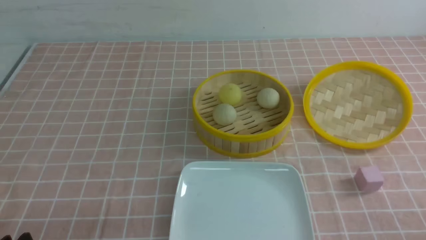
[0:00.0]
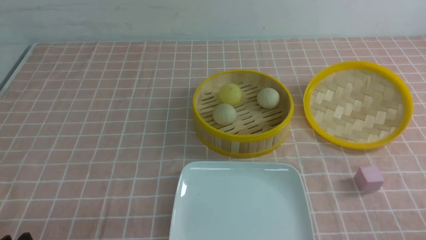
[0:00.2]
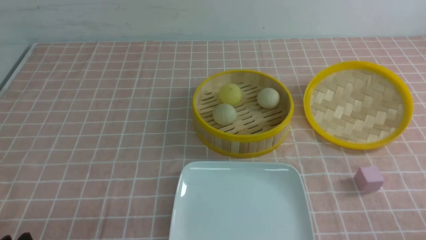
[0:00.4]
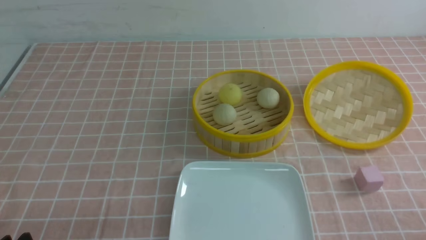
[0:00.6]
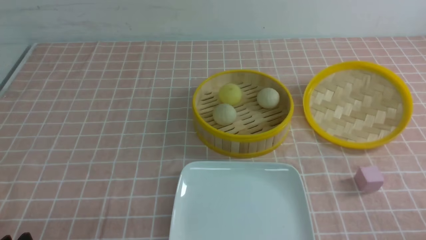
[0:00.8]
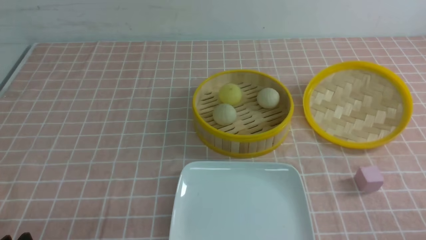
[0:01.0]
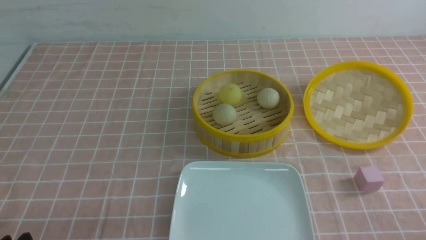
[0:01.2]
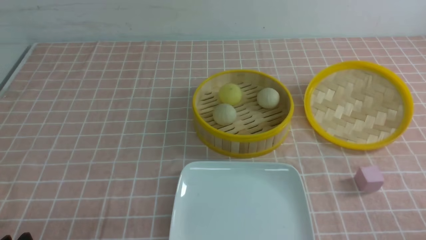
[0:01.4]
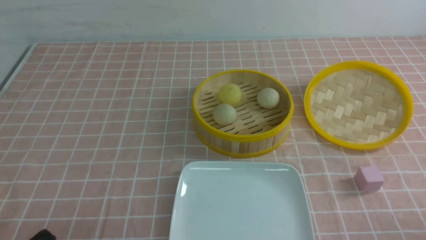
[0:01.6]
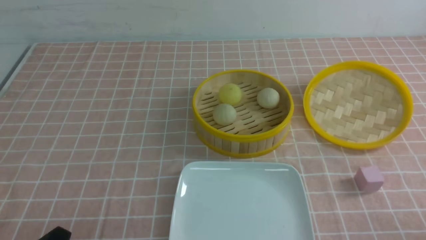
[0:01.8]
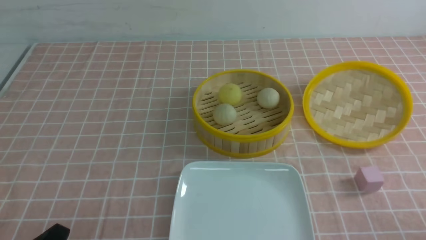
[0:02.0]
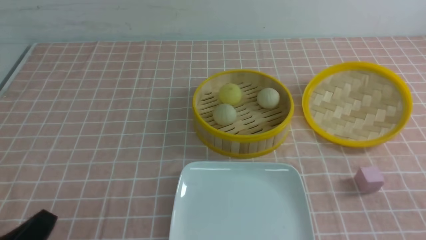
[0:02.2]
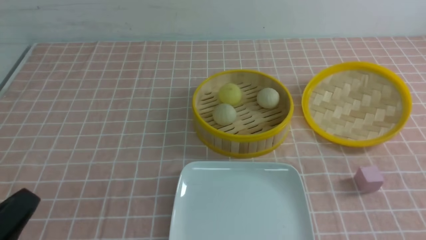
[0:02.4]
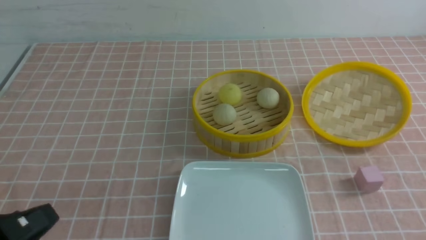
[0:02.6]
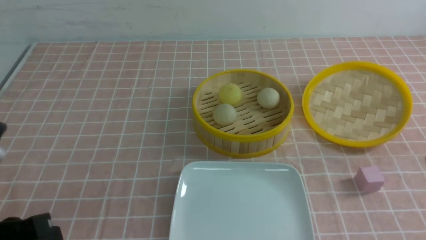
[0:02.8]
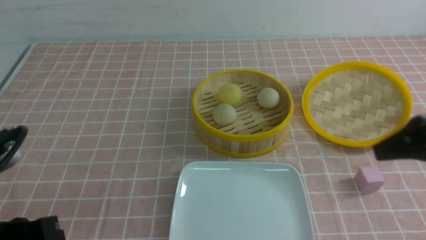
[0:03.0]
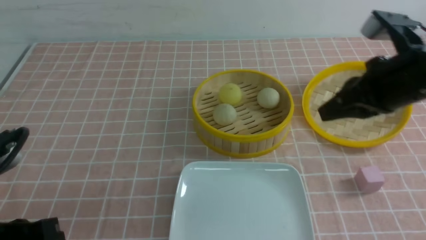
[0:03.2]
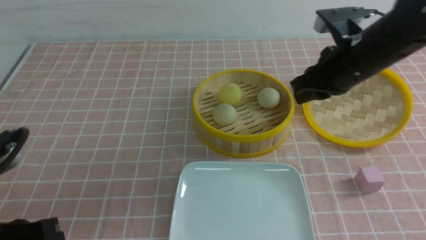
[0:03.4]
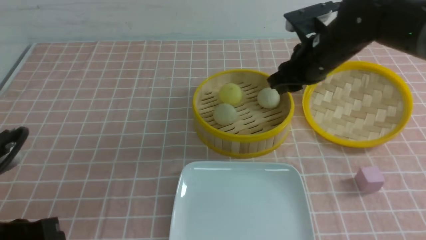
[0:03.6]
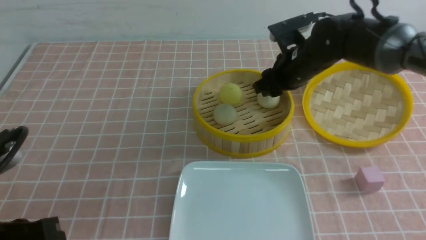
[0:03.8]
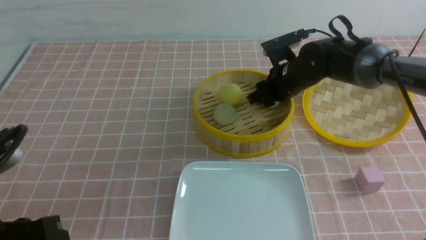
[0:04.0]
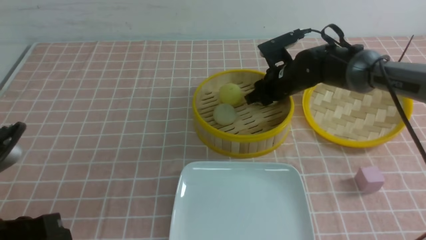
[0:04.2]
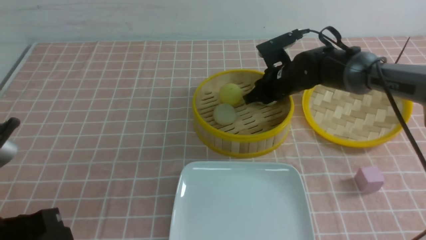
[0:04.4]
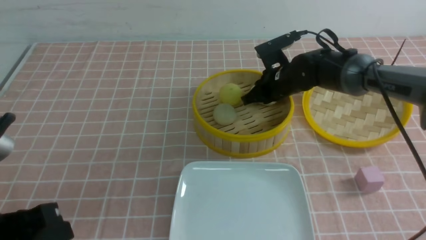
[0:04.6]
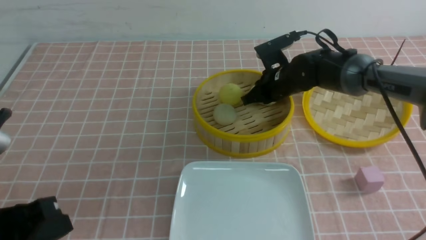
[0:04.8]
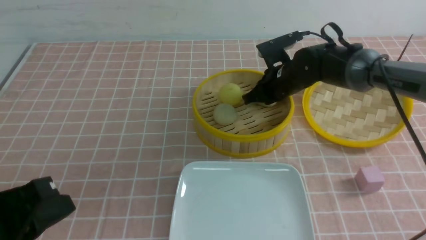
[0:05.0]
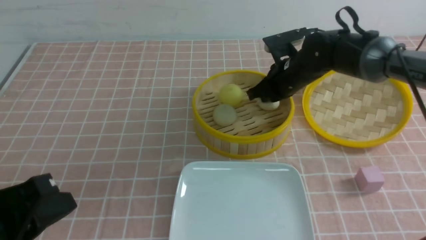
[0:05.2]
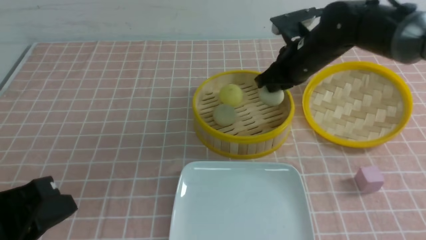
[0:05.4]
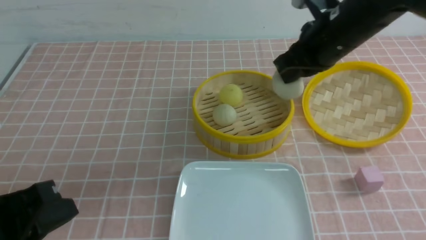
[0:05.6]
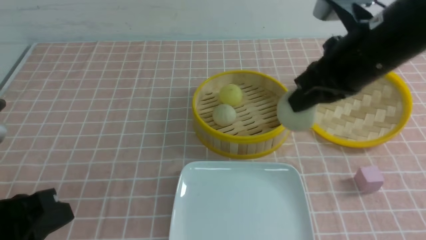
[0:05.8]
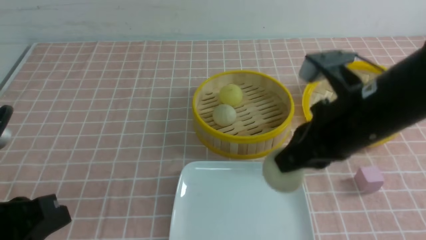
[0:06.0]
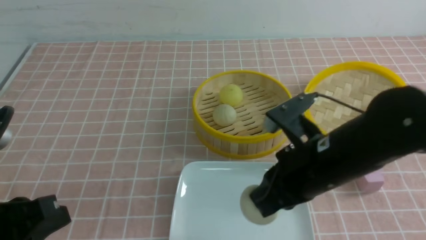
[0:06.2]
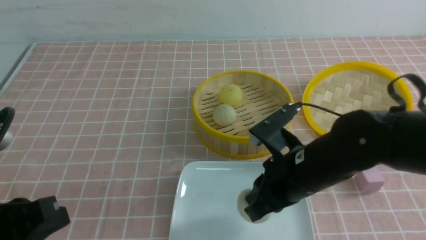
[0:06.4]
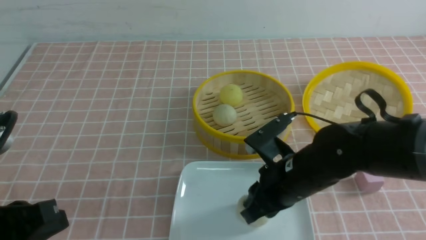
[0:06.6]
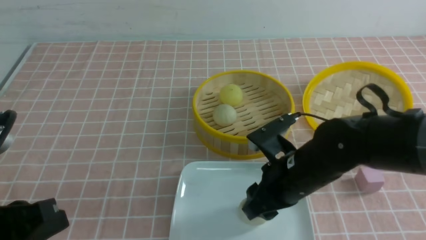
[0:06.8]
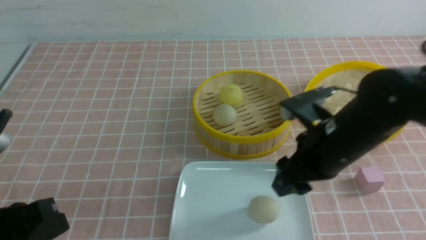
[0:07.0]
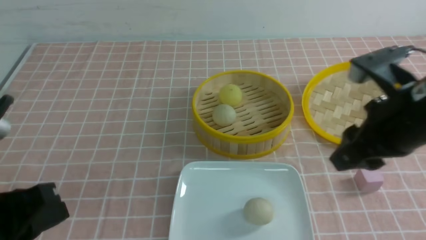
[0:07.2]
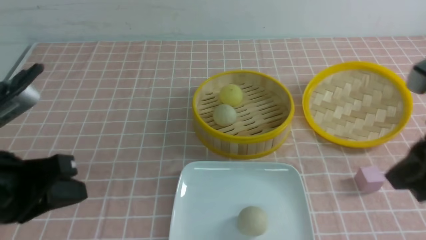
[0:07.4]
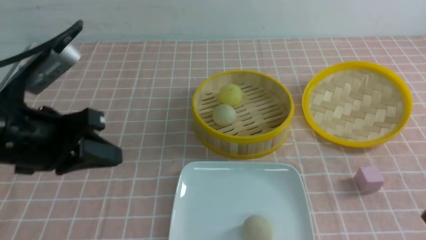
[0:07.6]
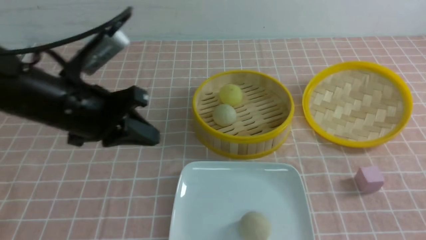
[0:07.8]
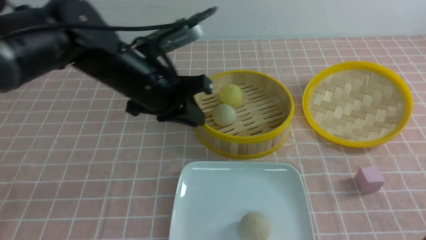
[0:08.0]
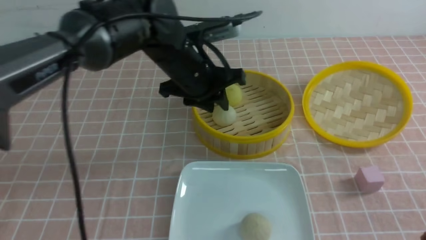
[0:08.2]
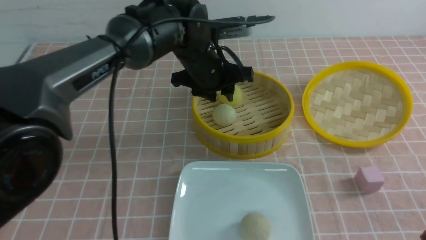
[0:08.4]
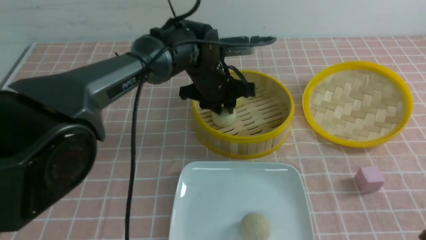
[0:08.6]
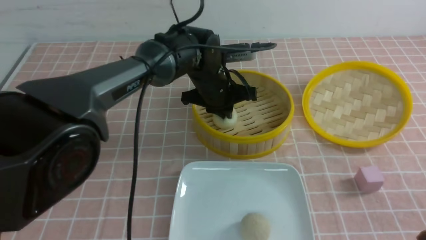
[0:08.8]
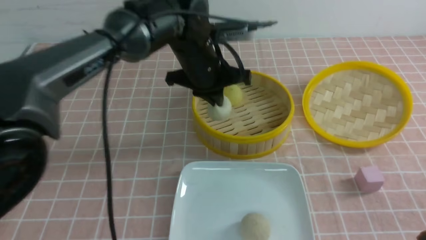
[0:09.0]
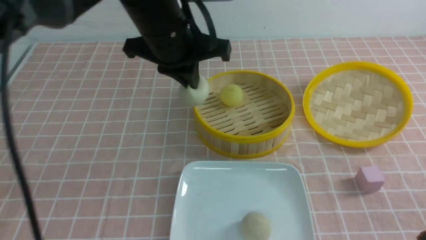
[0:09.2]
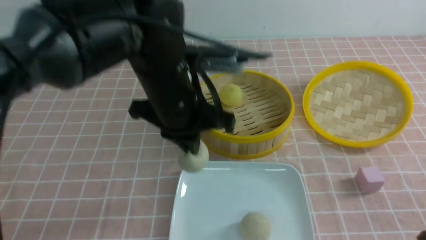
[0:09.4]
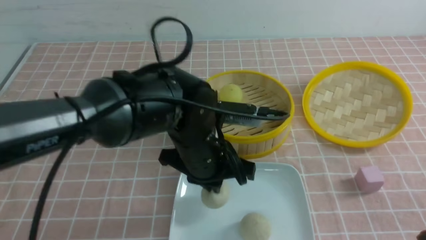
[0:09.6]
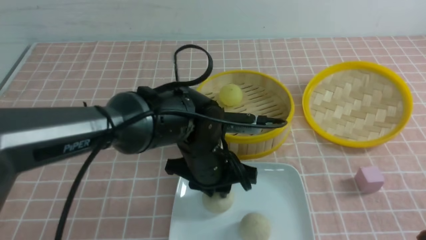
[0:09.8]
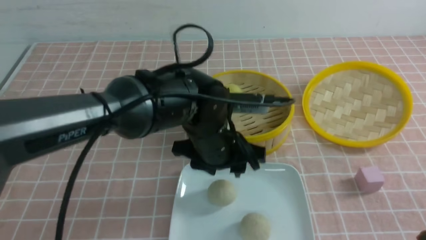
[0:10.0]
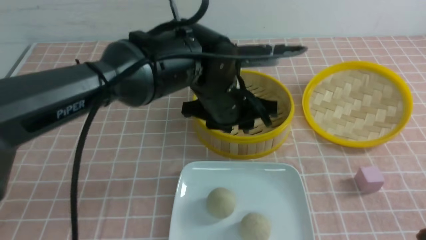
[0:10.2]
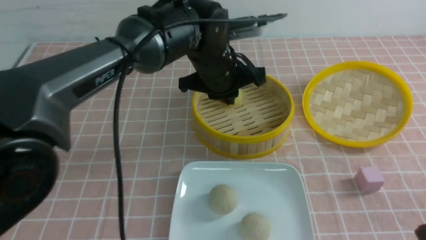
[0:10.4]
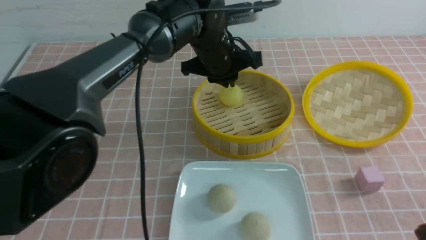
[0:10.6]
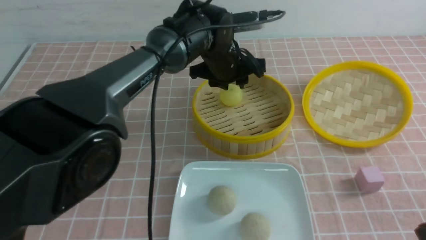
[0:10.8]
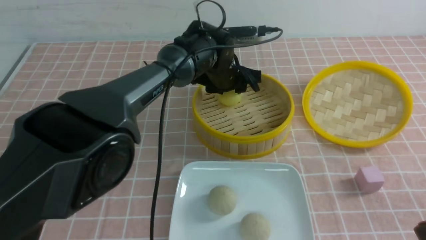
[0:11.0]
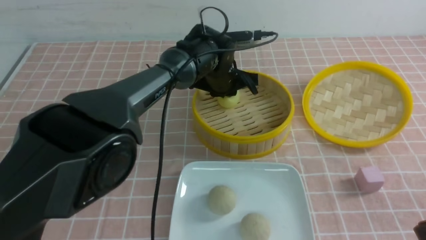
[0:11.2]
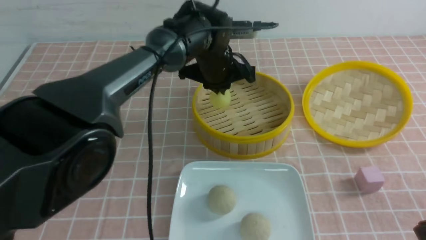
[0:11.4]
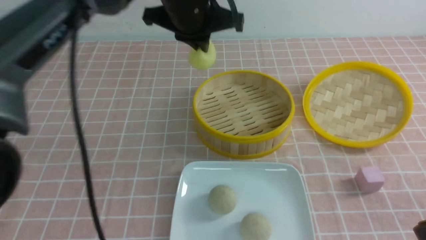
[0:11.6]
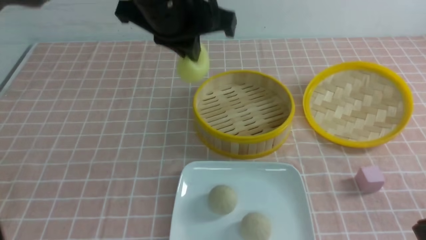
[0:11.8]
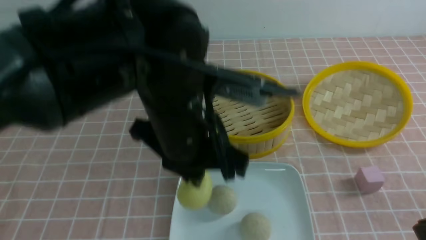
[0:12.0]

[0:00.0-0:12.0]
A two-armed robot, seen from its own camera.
Step, 0:00.0 to 0:04.0: use the right arm to grab the steamed stuffed bun that is closest to it.
Step, 0:04.4 to 0:06.8: use the right arm to put the steamed stuffed bun into the plate.
Step, 0:07.0 to 0:08.8: use the left arm to grab the steamed stuffed bun that is closest to it.
Step, 0:09.0 to 0:10.0: use the left arm to put the steamed stuffed bun into the plate.
Step, 0:10.2 to 0:11.0: use the left arm to grab the steamed stuffed bun that is closest to it.
0:01.6 to 0:03.0: The right gripper moves forward and upward, some 25 cm. Meanwhile the left gripper moves upward, roughly 10 cm, and closes its fingers.
0:03.0 to 0:04.4: The right gripper goes approximately 30 cm forward, downward and to the left, and opens up.
0:04.4 to 0:06.0: The right gripper shifts some 25 cm backward and upward, and closes.
0:06.0 to 0:07.6: The left gripper heads forward, covering some 10 cm; the right gripper heads backward and to the right, covering about 15 cm, and opens and closes again.
0:07.6 to 0:09.0: The left gripper is displaced to the right and forward by roughly 25 cm, and opens, then closes again.
0:09.0 to 0:10.4: The left gripper reaches about 10 cm downward, then returns, and opens, then closes again.
0:10.4 to 0:12.0: The left gripper goes some 15 cm backward, and opens, then closes again.

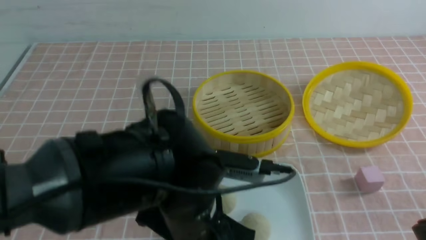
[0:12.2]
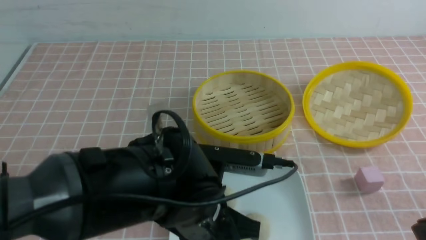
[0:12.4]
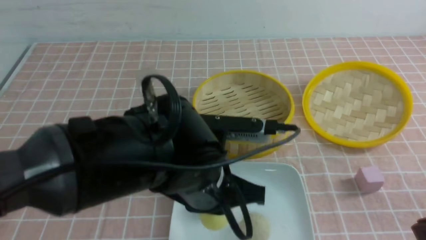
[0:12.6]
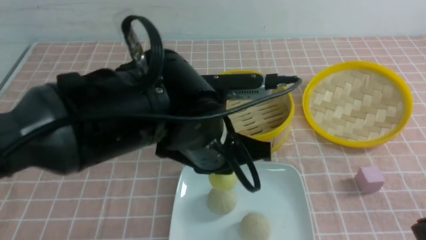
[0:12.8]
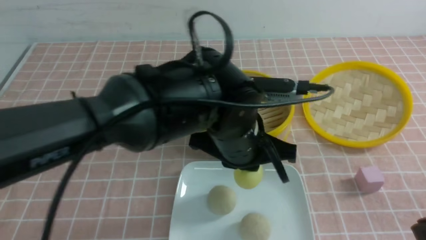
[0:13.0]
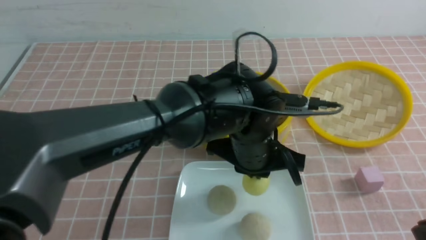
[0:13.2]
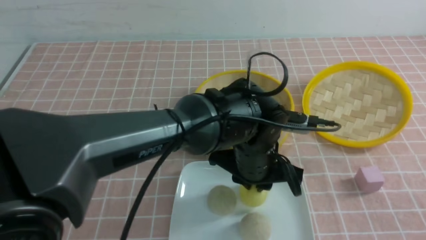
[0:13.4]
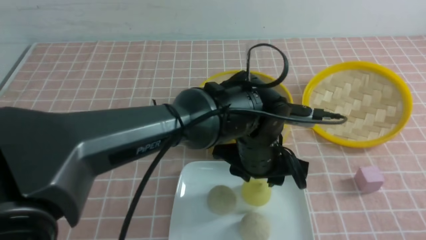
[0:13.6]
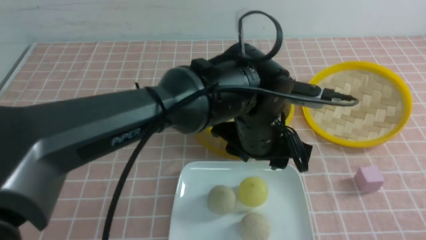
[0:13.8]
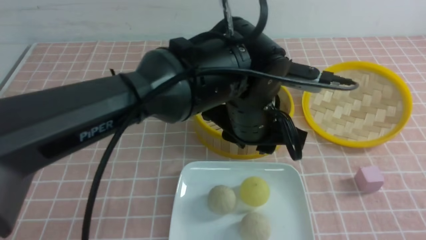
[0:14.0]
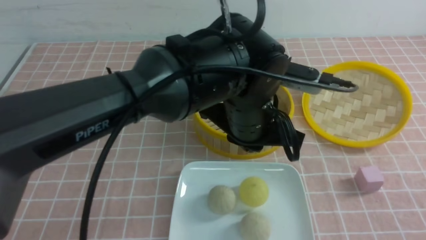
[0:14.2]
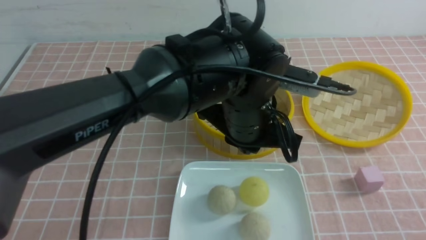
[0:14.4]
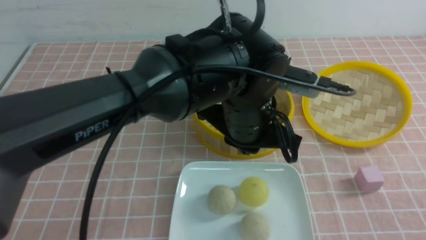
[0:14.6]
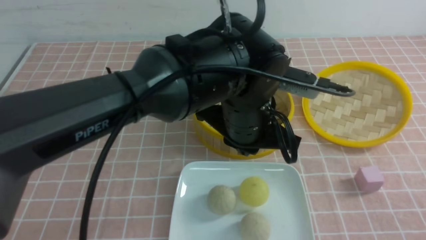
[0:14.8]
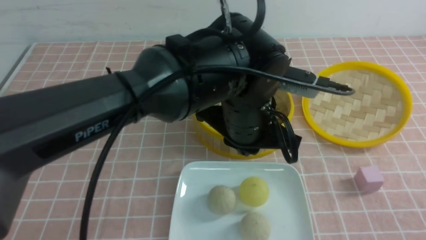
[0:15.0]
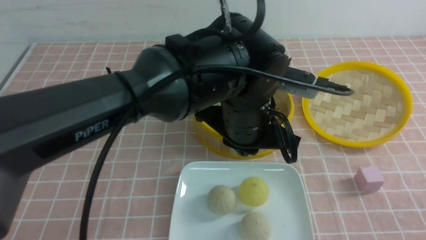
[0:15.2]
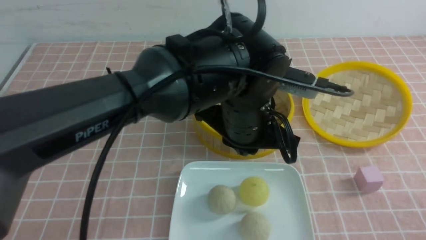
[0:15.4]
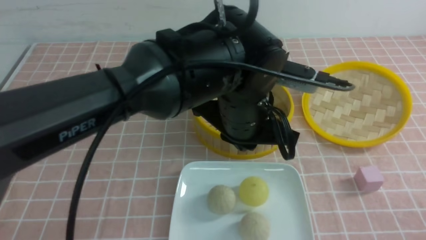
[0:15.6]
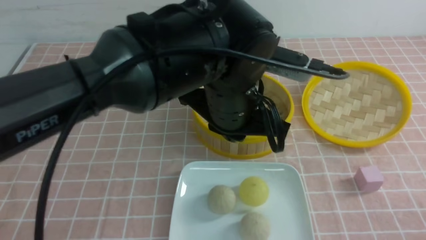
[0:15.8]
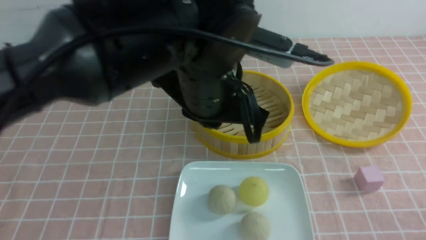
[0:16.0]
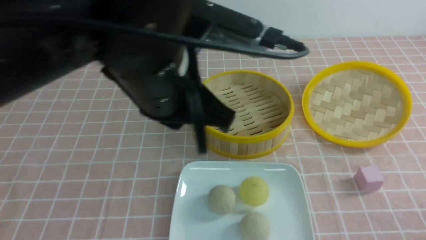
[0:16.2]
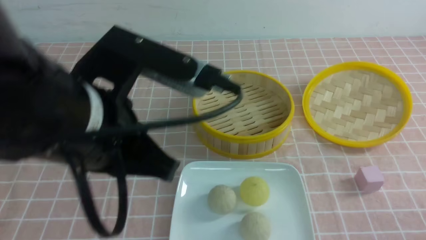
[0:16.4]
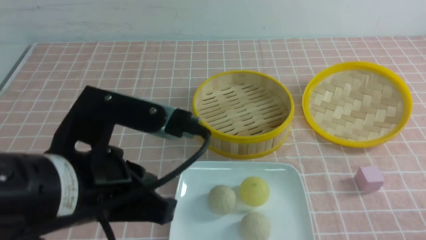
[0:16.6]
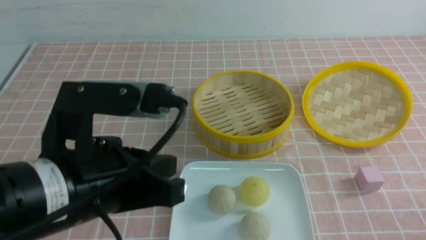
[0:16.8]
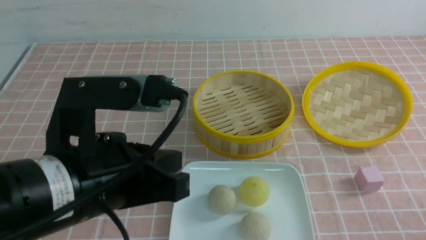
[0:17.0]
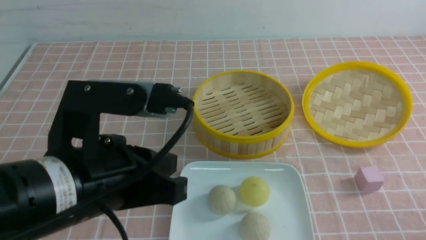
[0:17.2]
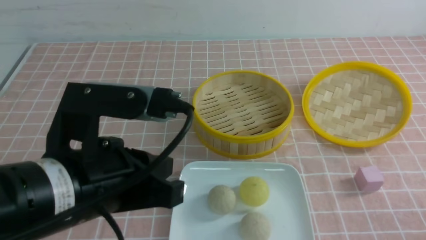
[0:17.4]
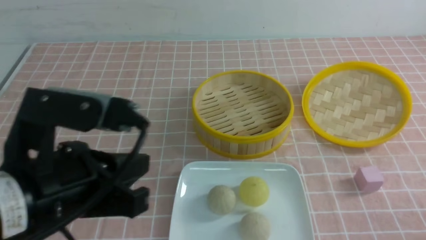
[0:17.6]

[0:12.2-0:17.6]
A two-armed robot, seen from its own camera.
Step, 0:12.2 to 0:13.6: use the left arm to put the steamed stuffed bun into the plate.
0:12.2 to 0:13.6: The right gripper is displaced backward by about 5 cm, while the left gripper heads forward and to the right, covering about 10 cm, and opens.
0:13.6 to 0:15.0: The right gripper is displaced downward by roughly 5 cm, while the left gripper moves upward, roughly 5 cm, and closes.
0:15.0 to 0:16.2: The left gripper is displaced to the left, upward and backward by approximately 15 cm. Meanwhile the right gripper moves downward, about 5 cm.
0:16.2 to 0:17.6: The left gripper shifts roughly 15 cm to the left, backward and downward.
